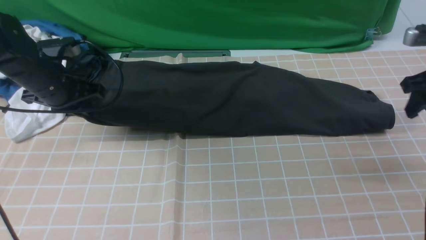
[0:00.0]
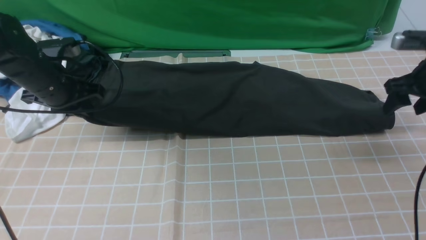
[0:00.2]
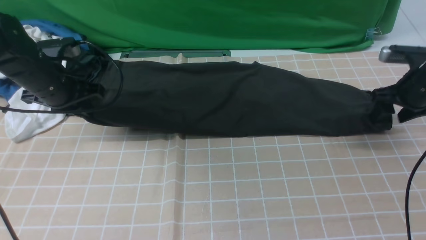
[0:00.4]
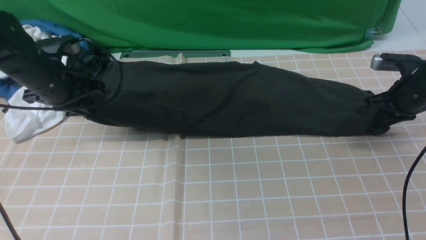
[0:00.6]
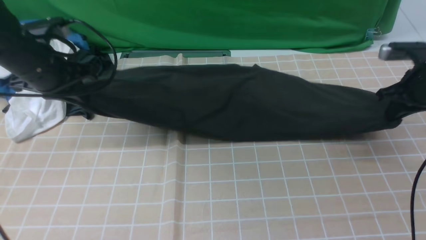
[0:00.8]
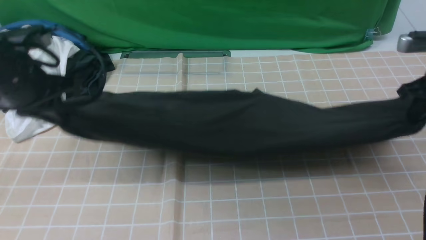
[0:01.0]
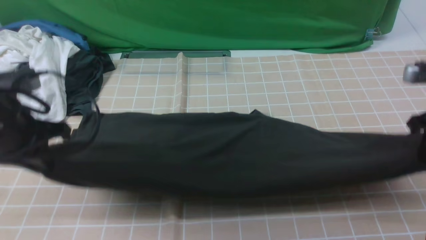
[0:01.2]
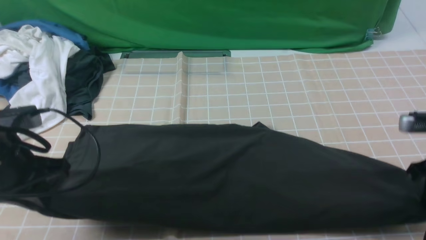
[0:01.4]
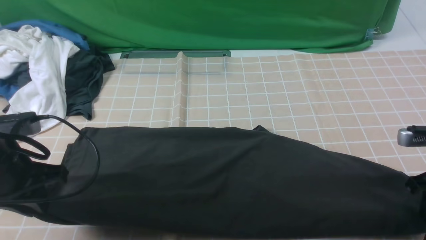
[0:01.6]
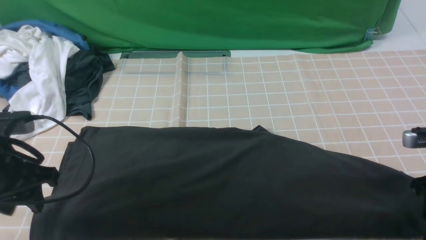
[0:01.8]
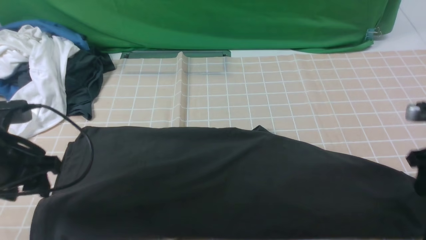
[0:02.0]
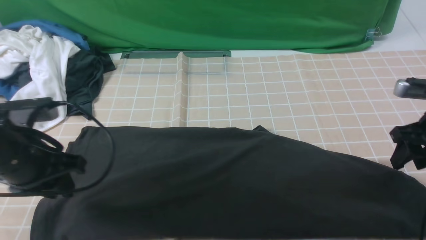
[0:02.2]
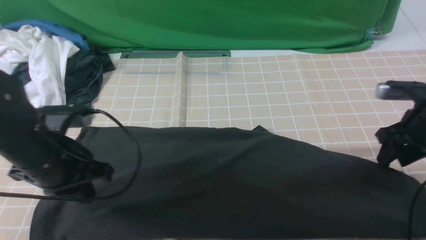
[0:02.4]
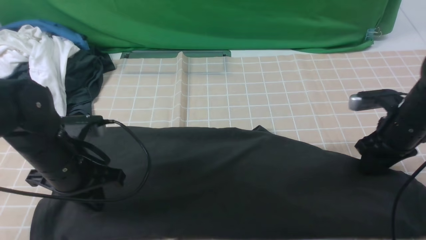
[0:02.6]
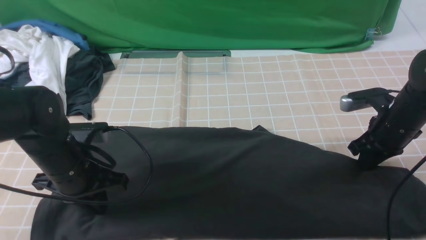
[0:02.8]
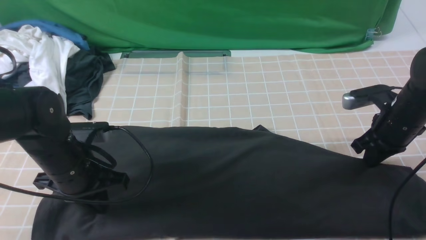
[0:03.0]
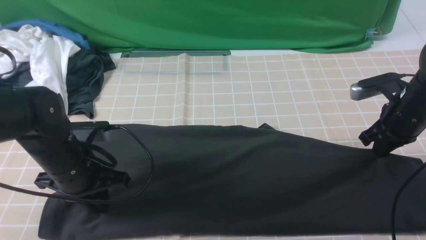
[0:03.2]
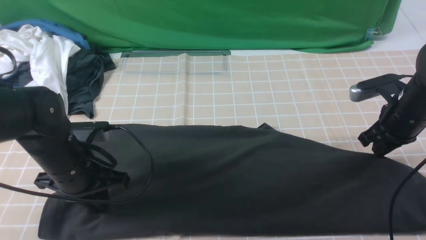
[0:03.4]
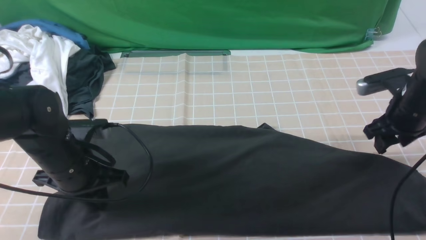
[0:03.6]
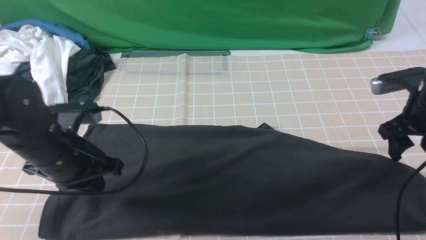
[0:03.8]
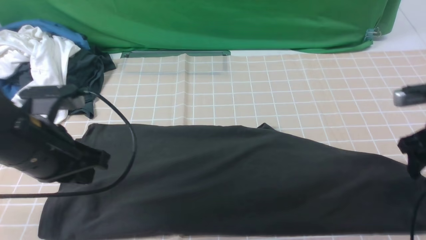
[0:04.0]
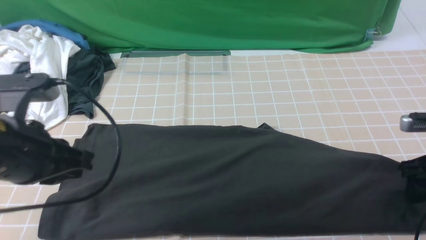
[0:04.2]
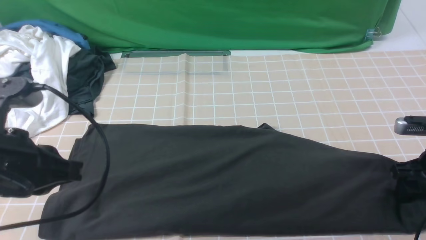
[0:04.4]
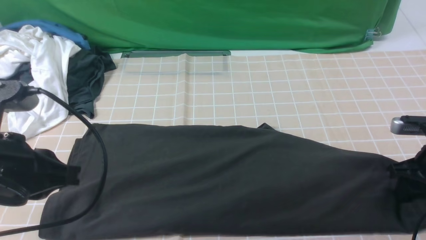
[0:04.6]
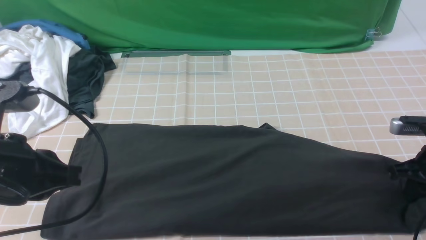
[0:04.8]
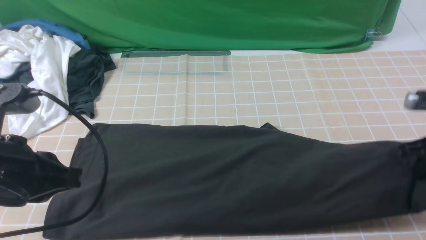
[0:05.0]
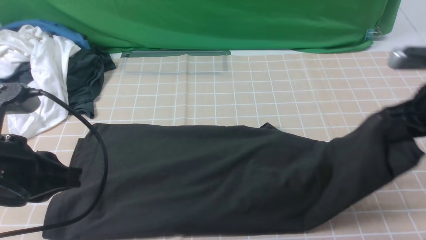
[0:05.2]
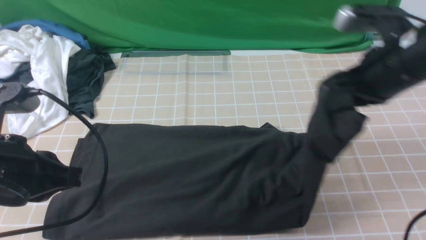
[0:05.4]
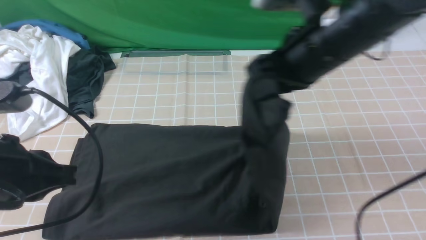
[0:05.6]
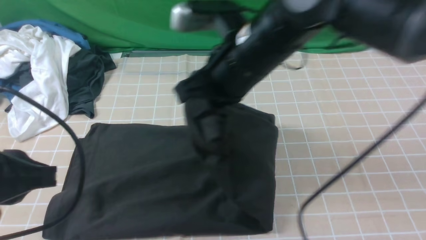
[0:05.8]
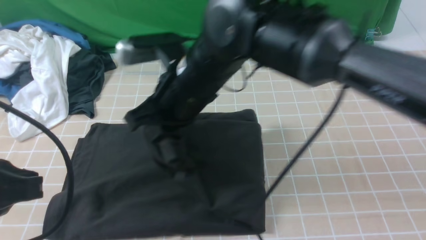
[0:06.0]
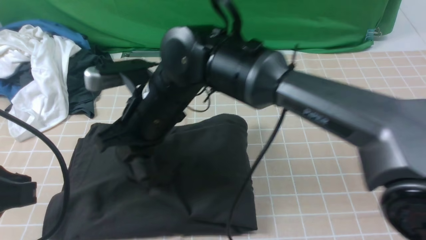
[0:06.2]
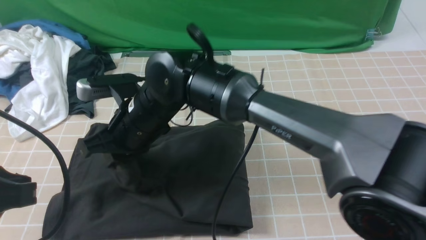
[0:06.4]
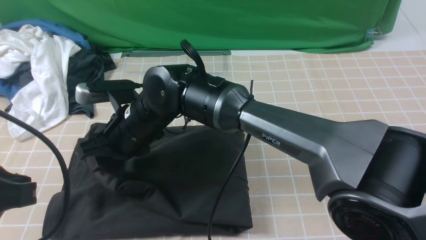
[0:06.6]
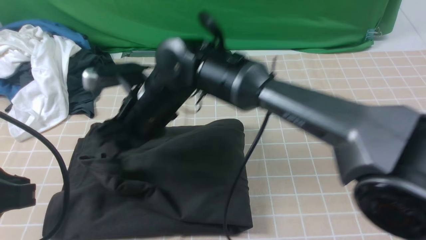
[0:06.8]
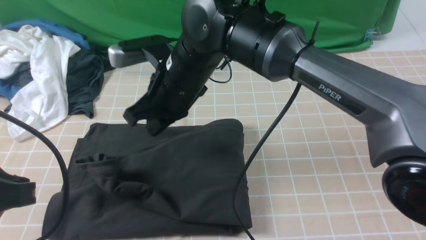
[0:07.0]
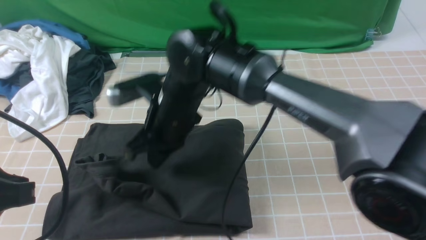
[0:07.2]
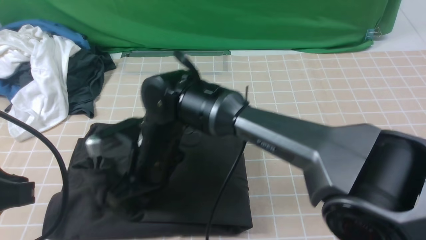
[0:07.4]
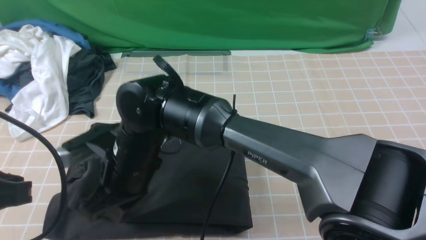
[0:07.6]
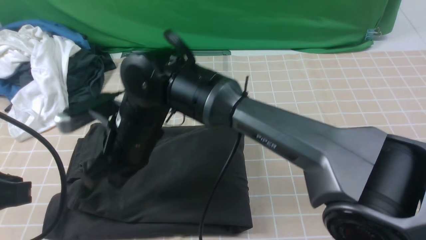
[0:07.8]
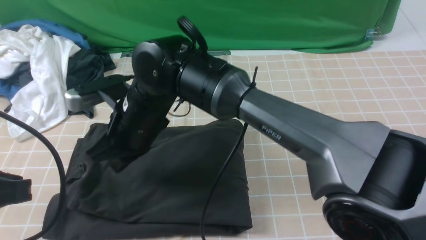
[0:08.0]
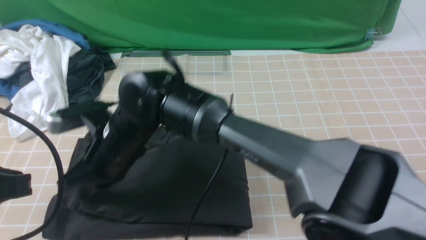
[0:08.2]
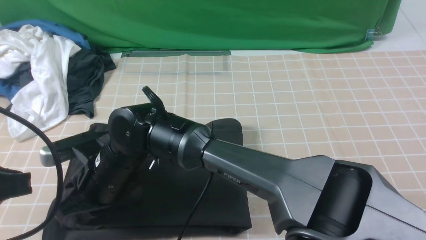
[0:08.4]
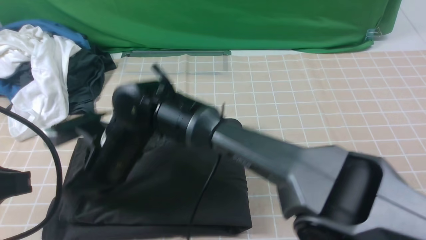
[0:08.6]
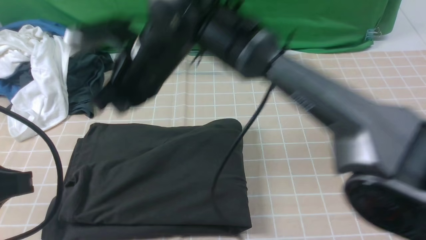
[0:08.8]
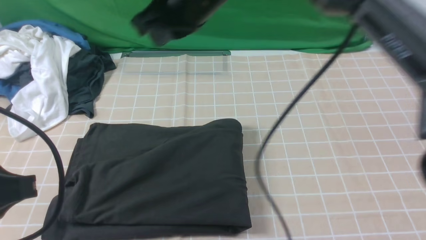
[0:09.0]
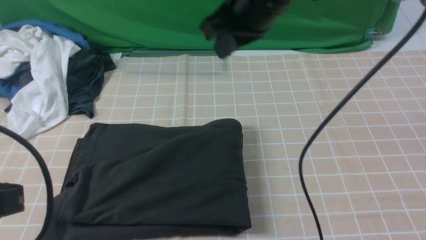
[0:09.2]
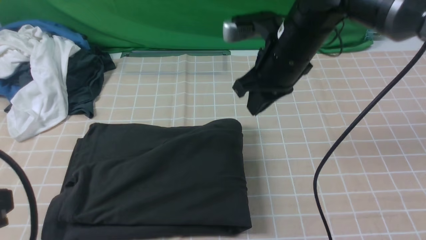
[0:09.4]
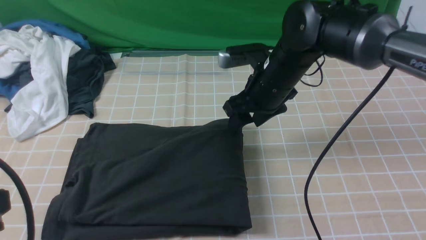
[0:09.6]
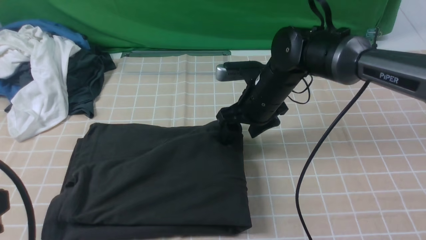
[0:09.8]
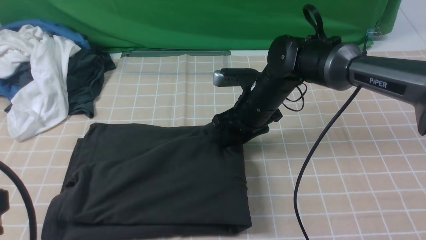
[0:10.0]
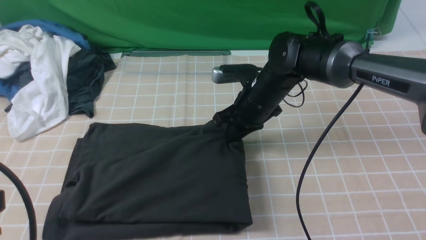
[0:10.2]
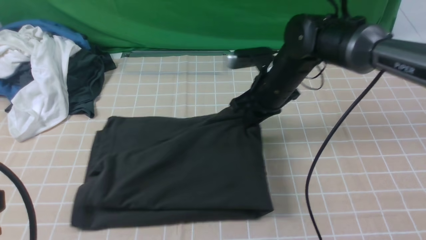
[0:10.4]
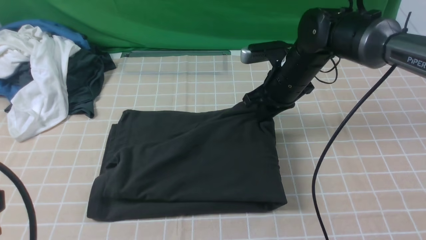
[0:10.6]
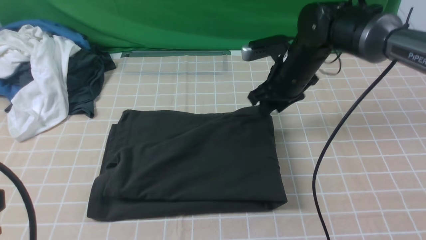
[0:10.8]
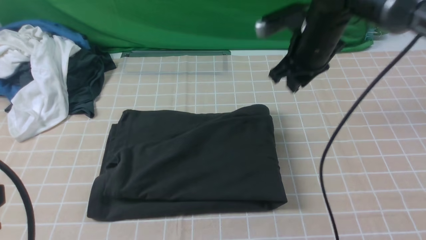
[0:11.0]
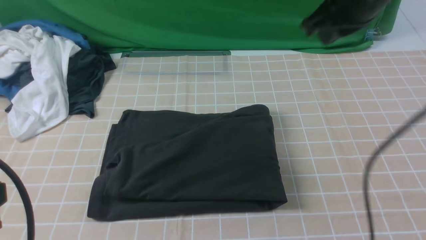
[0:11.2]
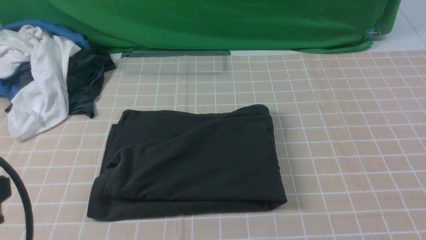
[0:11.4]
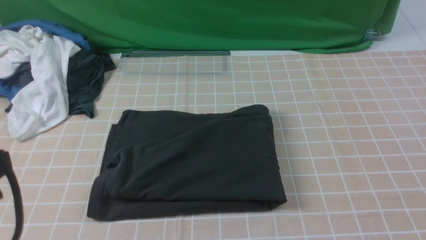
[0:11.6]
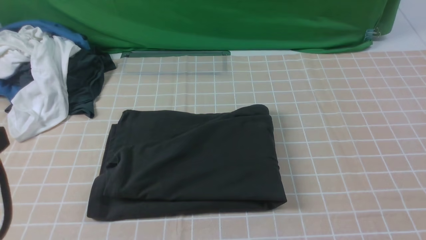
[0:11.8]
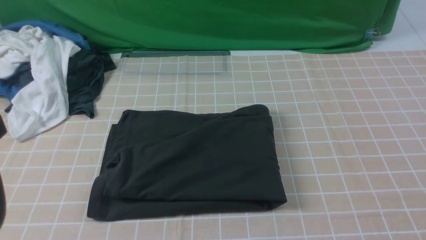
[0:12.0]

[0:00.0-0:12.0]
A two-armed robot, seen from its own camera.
Step, 0:00.0 to 0:04.6: use the right arm to clamp the right edge of the fabric.
Step, 0:04.8 to 0:06.8: use the right arm to drag the right edge of the fabric to the left and folds it over the left edge.
0:00.0 to 0:01.6: The right gripper travels backward and downward by approximately 15 cm, while the left gripper goes about 15 cm backward.
0:01.6 to 0:03.0: The right gripper heads forward, covering roughly 10 cm, and opens, then closes once more, while the left gripper moves to the right and downward, roughly 10 cm, and closes up.
0:03.0 to 0:04.4: The right gripper travels backward by about 5 cm, and opens; the left gripper heads upward and backward, covering some 15 cm.
0:04.4 to 0:06.0: The right gripper heads to the left, covering roughly 40 cm, and closes up. Meanwhile the left gripper ends up about 5 cm from where it was.
0:06.0 to 0:07.6: The right gripper goes some 10 cm downward and to the left, and opens, then closes again.
0:07.6 to 0:09.0: The right gripper travels upward, to the right and forward by some 20 cm.
0:09.0 to 0:10.4: The right gripper heads downward and to the right, covering approximately 20 cm, and opens, then closes again.
0:10.4 to 0:12.0: The right gripper is displaced backward, to the right and upward by approximately 50 cm.

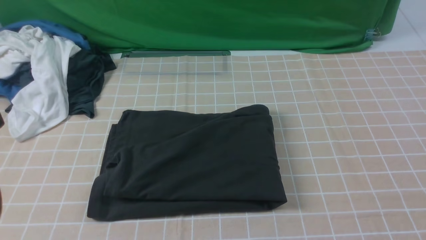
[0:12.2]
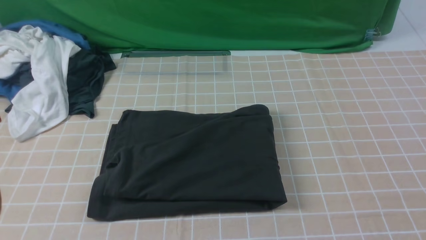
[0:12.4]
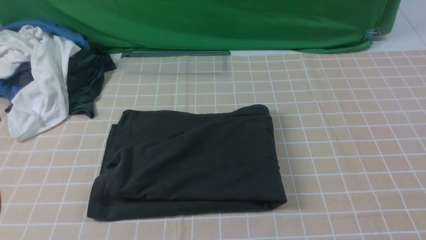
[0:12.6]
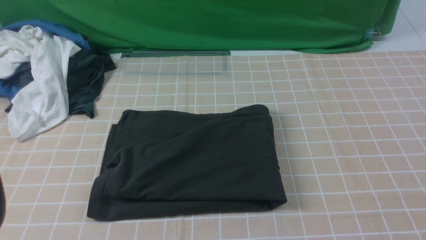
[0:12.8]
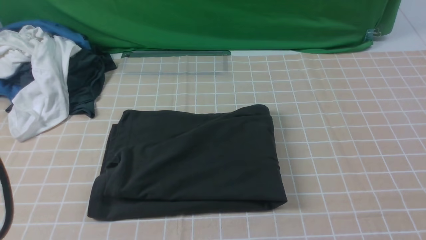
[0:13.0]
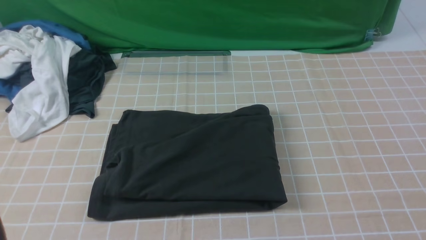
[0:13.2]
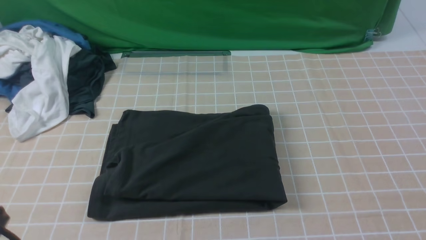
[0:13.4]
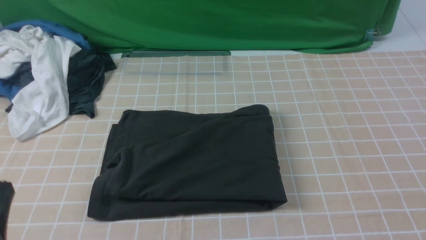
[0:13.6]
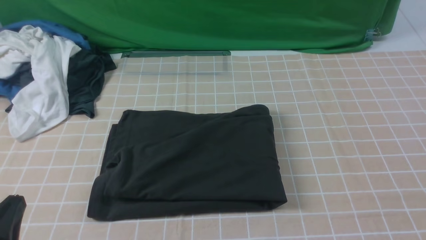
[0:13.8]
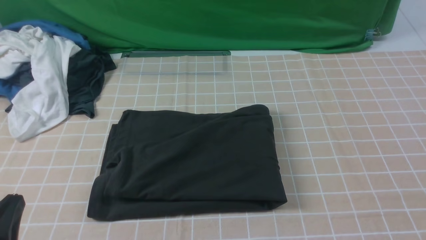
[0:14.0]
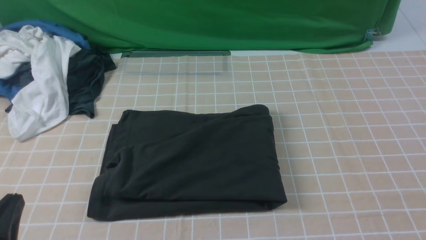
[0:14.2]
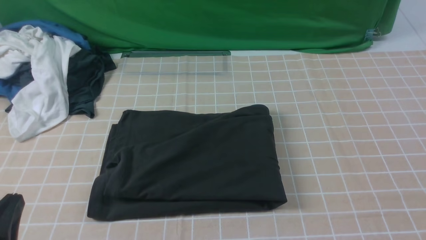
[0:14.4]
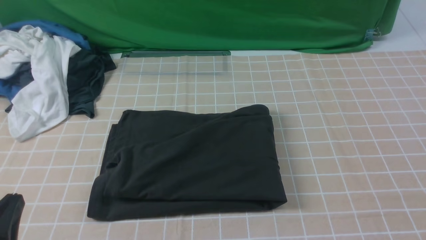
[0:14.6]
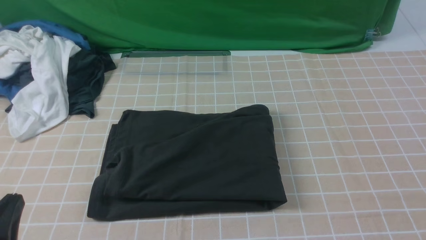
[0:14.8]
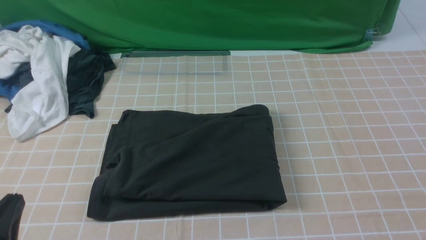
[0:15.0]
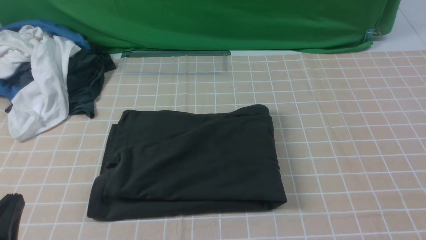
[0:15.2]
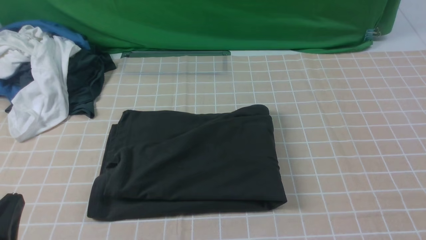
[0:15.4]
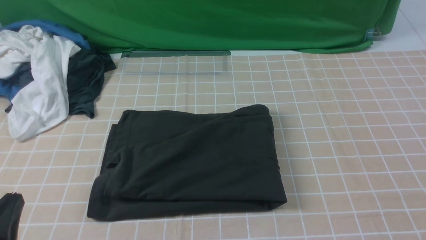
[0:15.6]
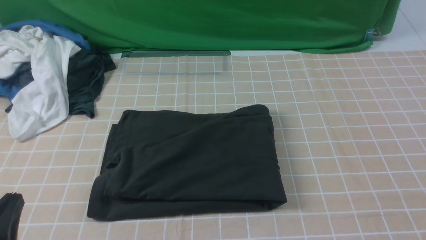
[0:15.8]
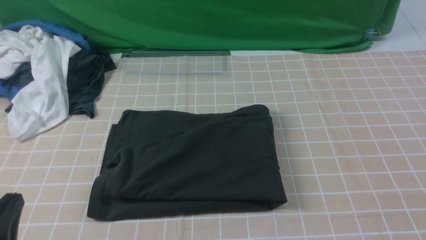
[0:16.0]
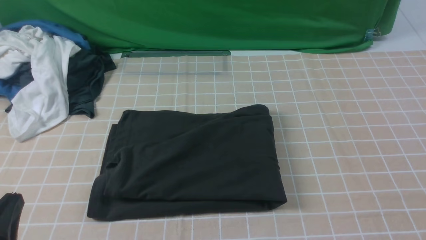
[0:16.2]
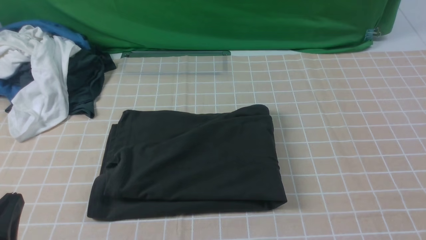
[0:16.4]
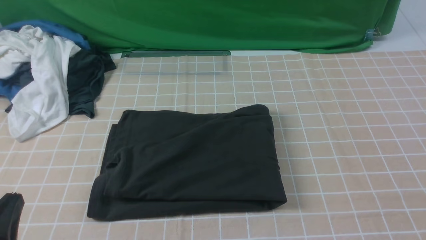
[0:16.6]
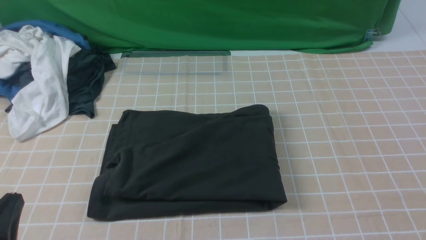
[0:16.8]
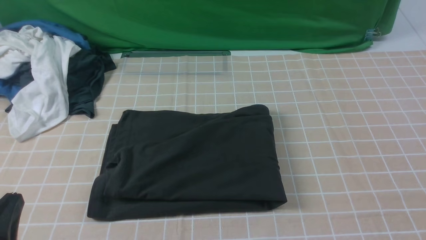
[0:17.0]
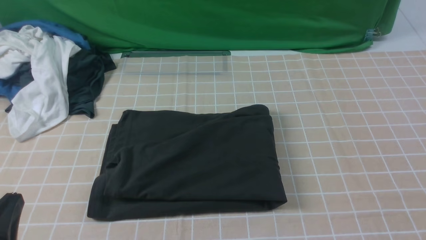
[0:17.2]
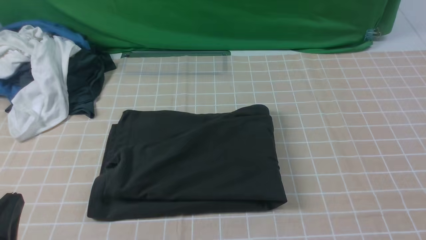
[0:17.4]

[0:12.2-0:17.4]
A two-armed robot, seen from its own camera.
0:12.2 to 0:14.0: The left gripper goes some 15 cm downward.
0:15.6 to 0:17.4: Neither gripper changes place.
